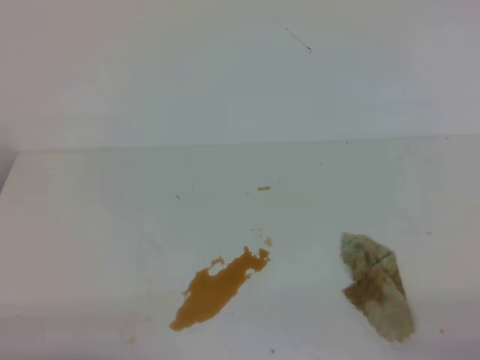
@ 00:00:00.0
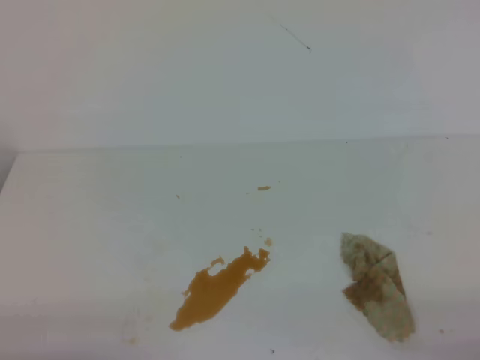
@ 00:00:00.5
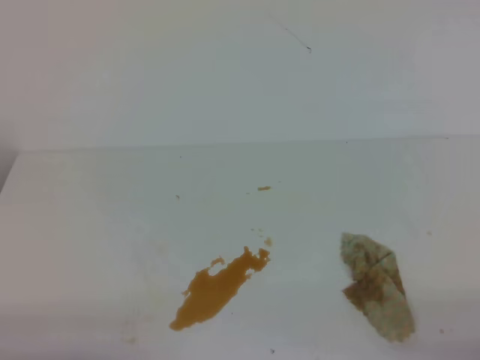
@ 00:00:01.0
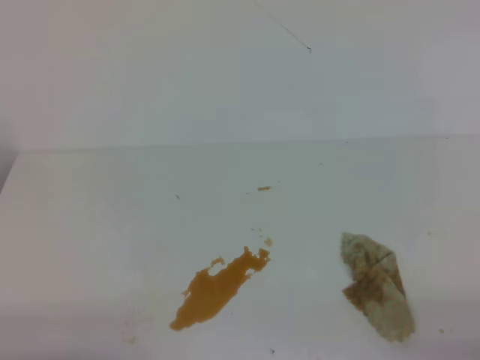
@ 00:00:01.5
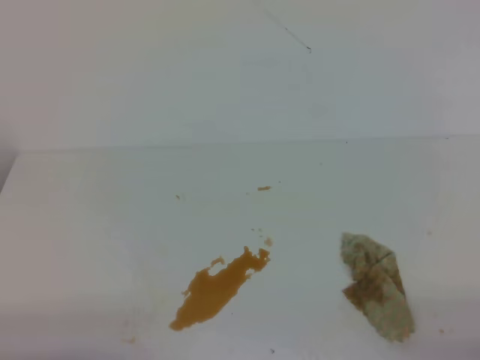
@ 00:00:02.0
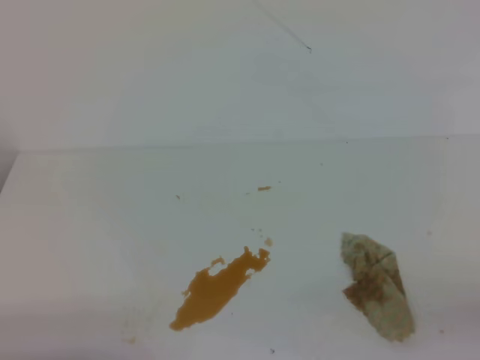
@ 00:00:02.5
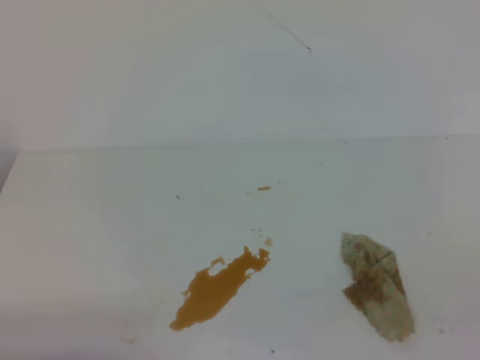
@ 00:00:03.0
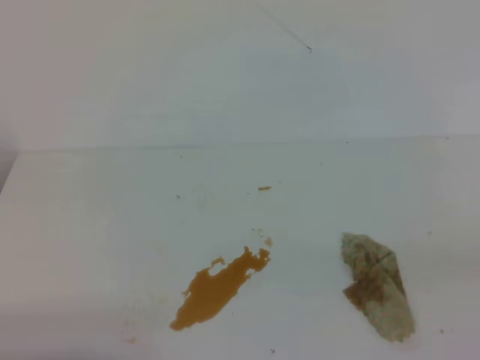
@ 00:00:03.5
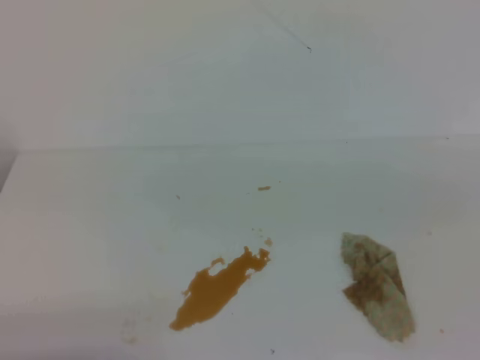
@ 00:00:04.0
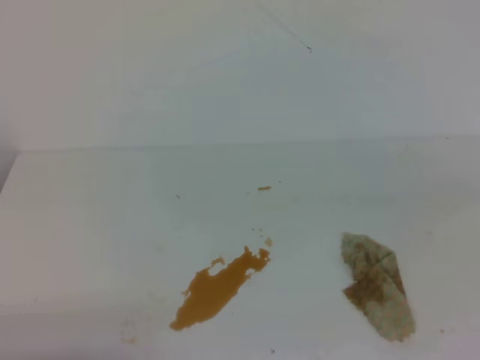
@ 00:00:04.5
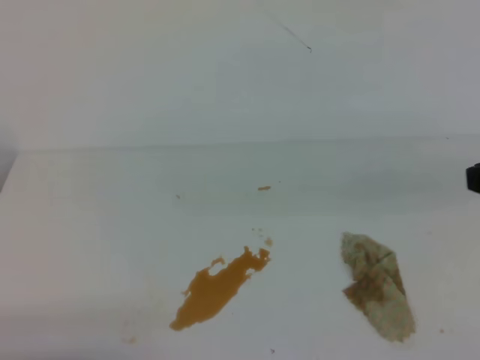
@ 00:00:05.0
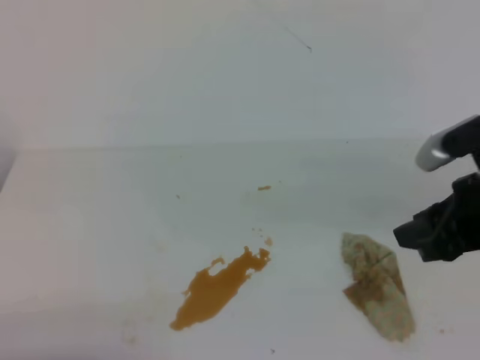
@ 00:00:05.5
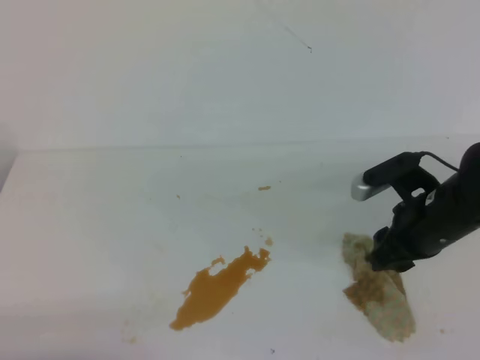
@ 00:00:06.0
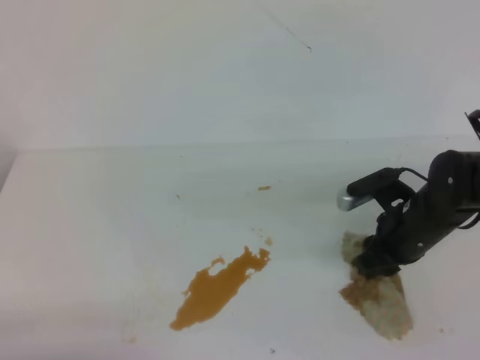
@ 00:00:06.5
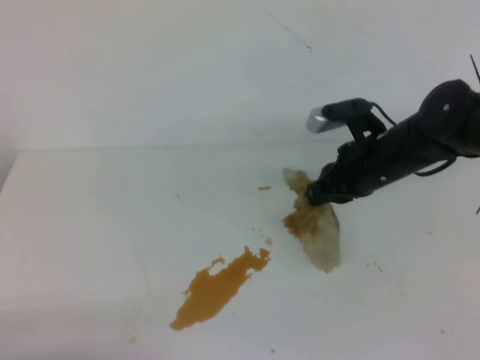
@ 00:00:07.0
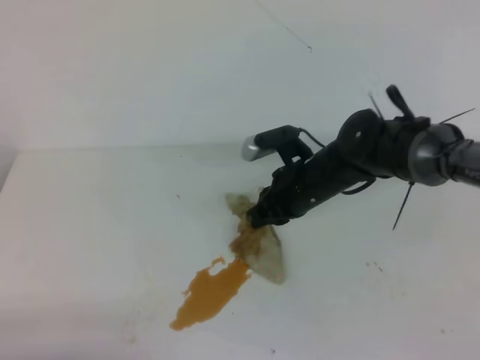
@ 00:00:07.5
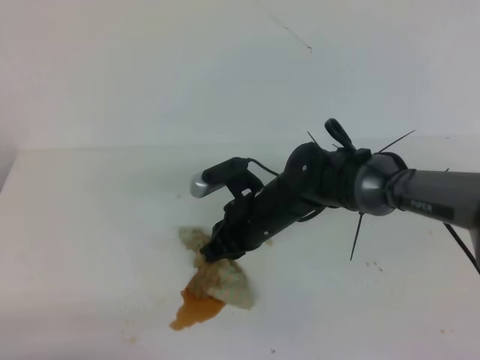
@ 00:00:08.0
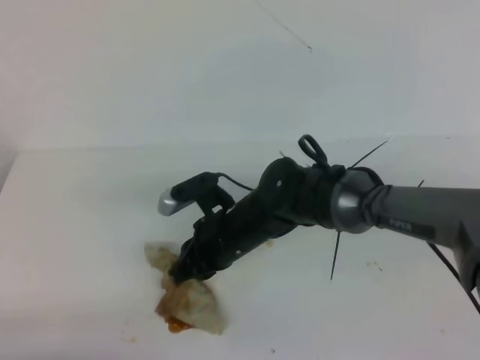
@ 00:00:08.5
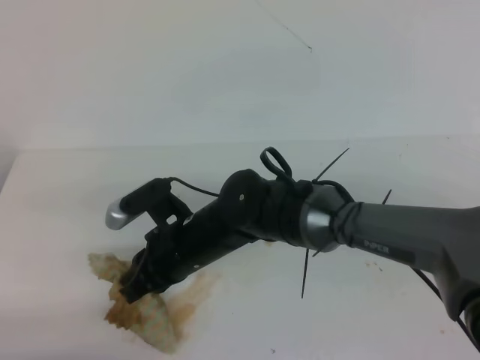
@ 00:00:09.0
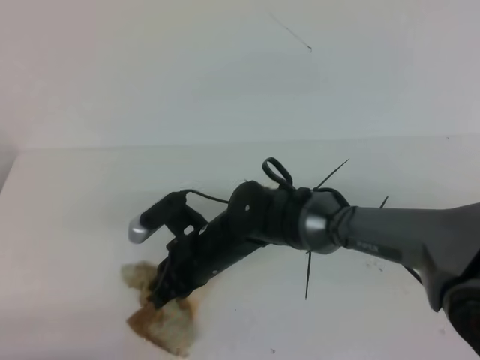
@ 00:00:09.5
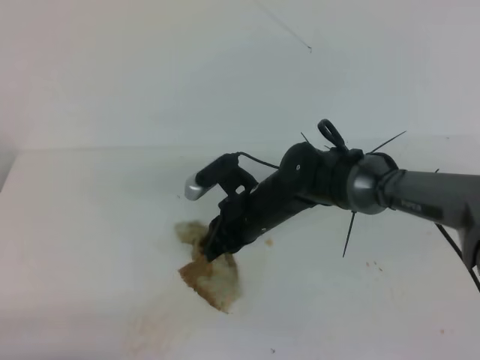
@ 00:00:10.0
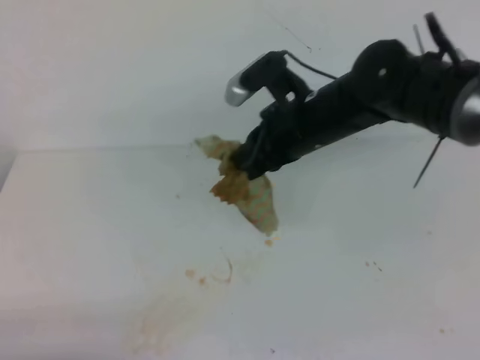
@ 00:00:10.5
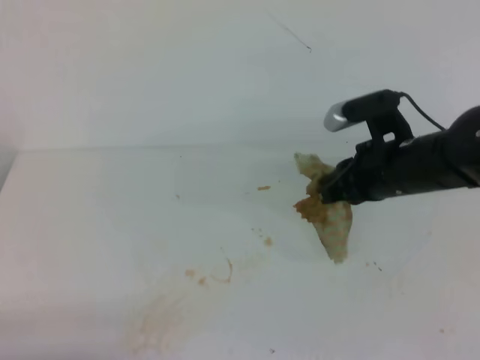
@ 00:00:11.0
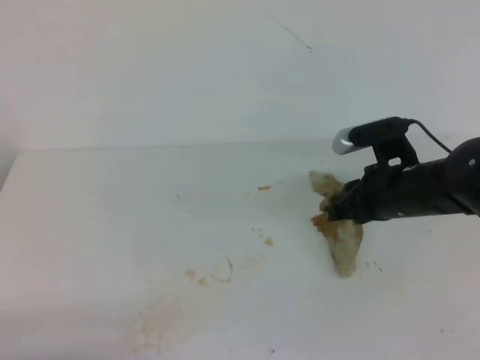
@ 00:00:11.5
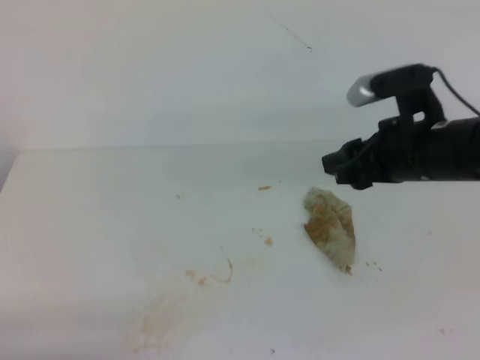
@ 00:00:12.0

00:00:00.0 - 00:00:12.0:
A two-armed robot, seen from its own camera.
00:00:00.0 - 00:00:02.0: Both grippers stay about where they are.
00:00:04.0 - 00:00:06.0: The right gripper is displaced forward, downward and to the left by some 30 cm, and opens its fingers.
00:00:06.0 - 00:00:08.0: The right gripper shifts roughly 20 cm to the left, and closes up.
00:00:08.0 - 00:00:10.0: The right gripper travels to the left and back again, about 10 cm each way.
00:00:10.0 - 00:00:12.0: The right gripper is displaced to the right and upward by roughly 20 cm, and opens up.

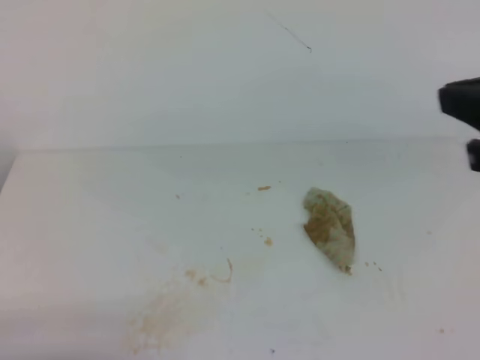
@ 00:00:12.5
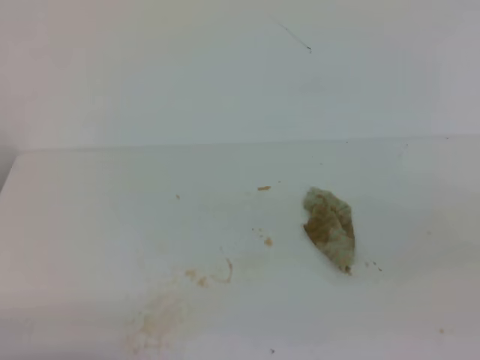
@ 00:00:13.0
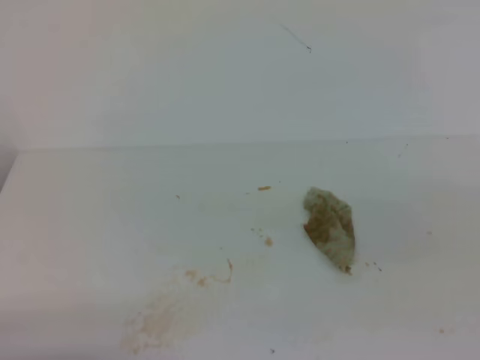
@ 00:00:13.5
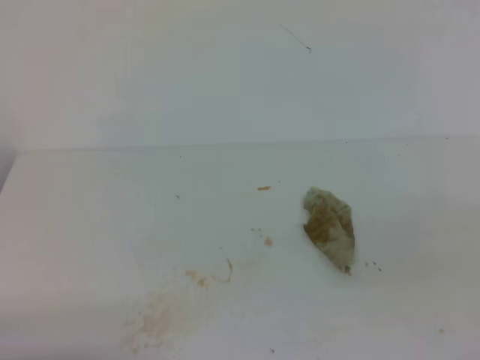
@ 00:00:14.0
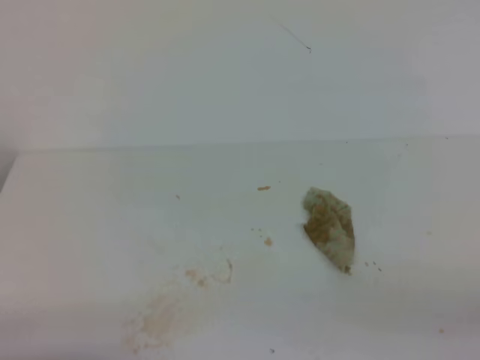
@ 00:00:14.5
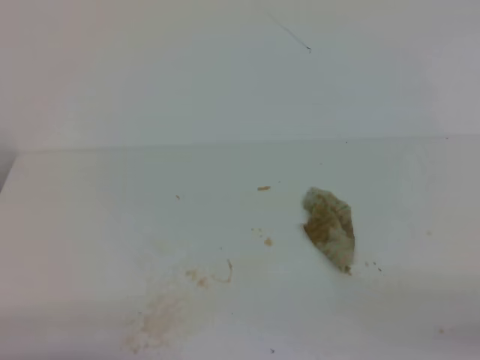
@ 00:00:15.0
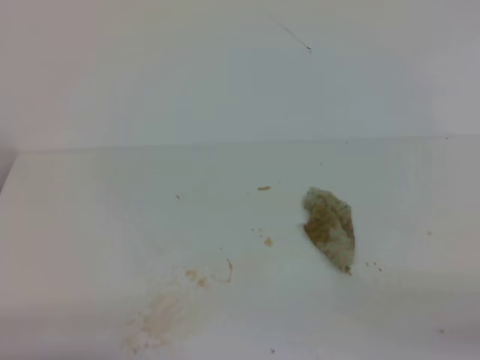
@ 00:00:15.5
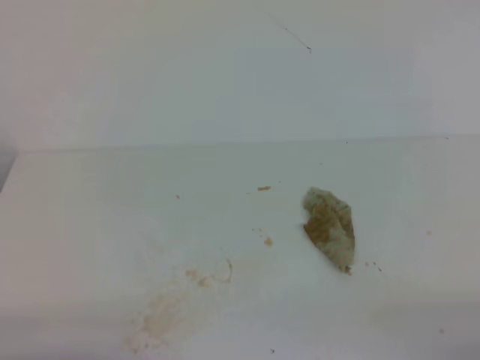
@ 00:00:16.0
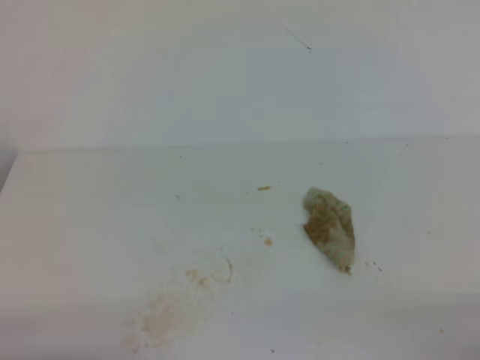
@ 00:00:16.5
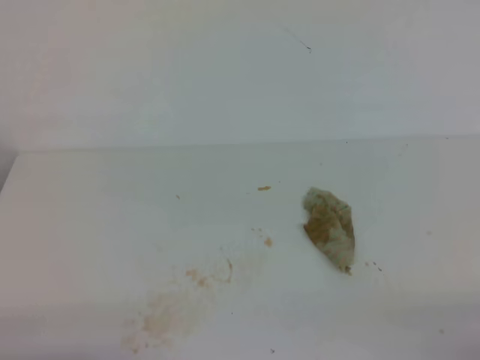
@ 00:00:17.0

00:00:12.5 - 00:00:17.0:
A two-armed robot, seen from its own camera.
00:00:12.5 - 00:00:14.5: The right gripper moves backward, downward and to the right, some 25 cm.
